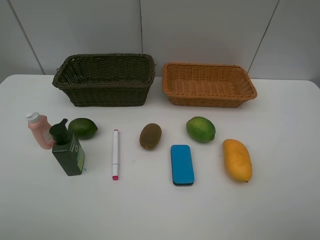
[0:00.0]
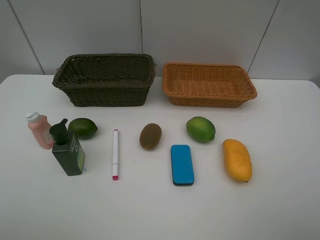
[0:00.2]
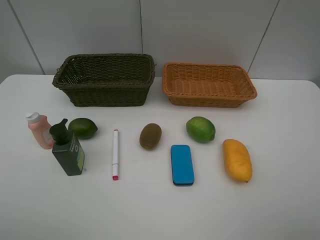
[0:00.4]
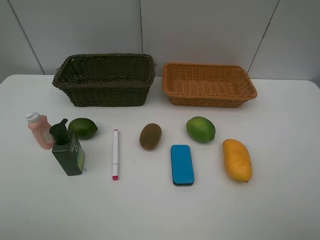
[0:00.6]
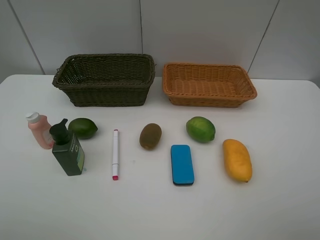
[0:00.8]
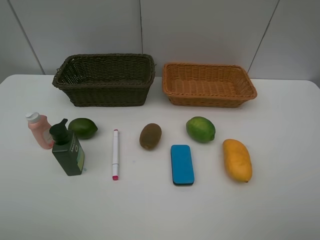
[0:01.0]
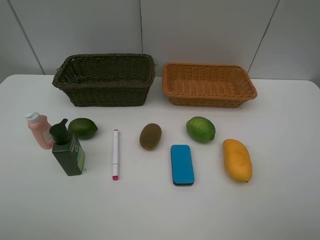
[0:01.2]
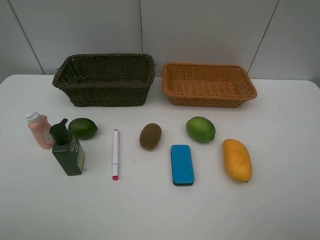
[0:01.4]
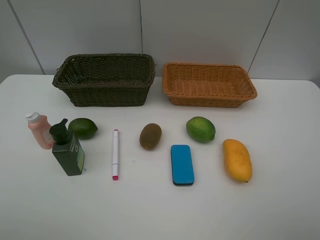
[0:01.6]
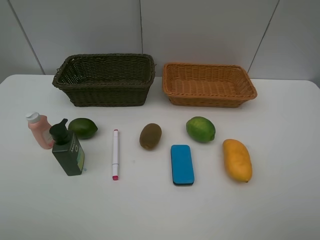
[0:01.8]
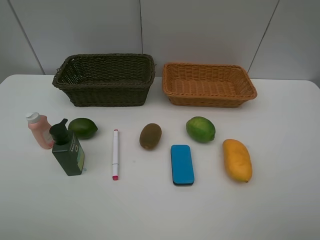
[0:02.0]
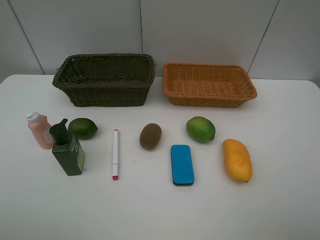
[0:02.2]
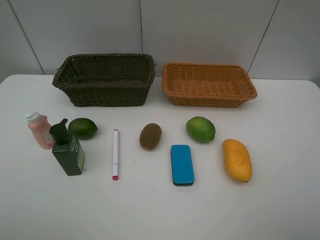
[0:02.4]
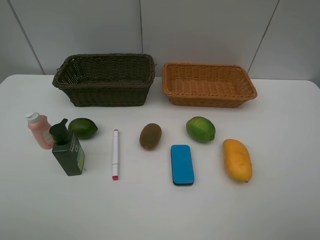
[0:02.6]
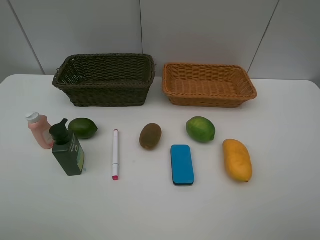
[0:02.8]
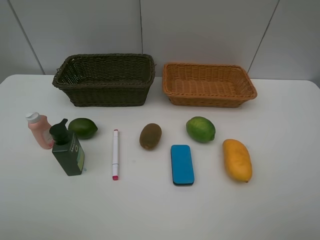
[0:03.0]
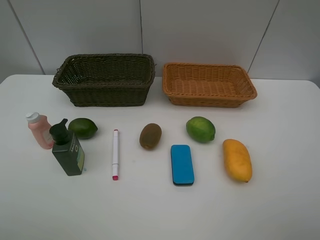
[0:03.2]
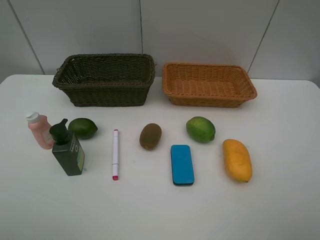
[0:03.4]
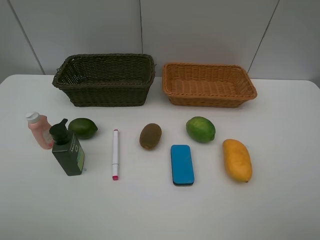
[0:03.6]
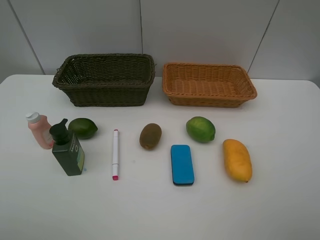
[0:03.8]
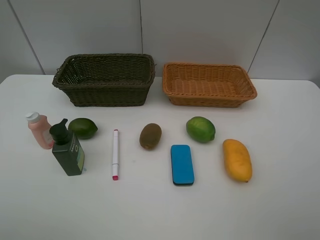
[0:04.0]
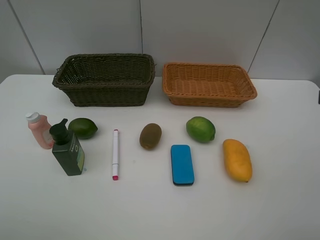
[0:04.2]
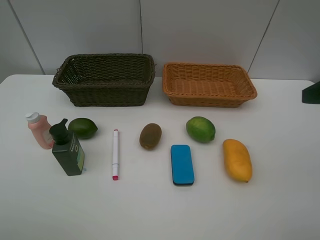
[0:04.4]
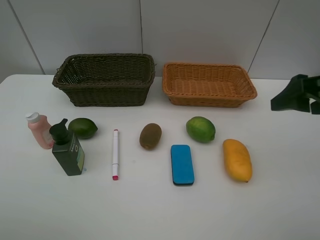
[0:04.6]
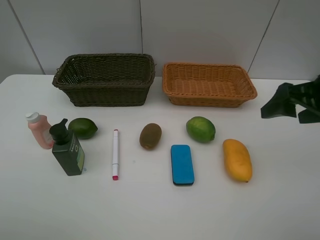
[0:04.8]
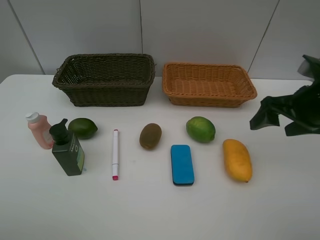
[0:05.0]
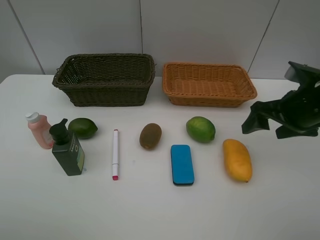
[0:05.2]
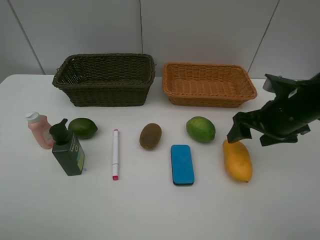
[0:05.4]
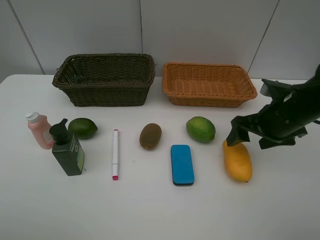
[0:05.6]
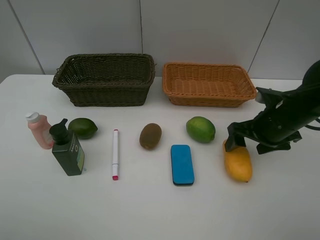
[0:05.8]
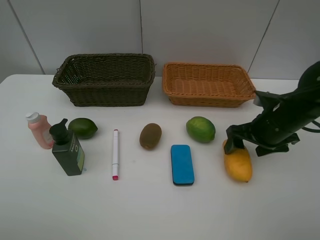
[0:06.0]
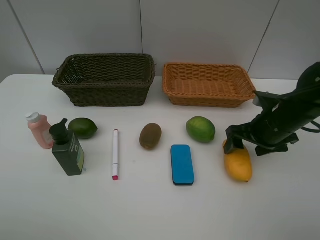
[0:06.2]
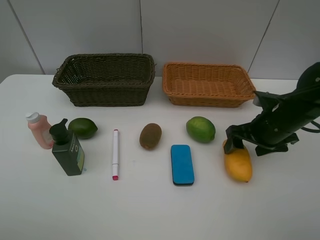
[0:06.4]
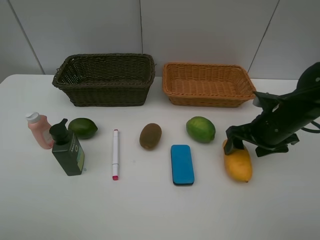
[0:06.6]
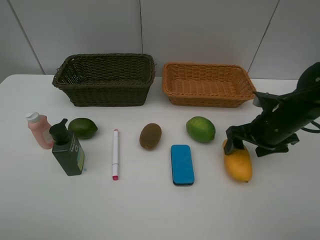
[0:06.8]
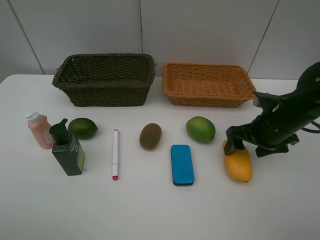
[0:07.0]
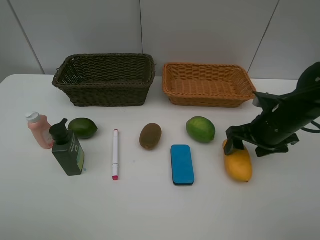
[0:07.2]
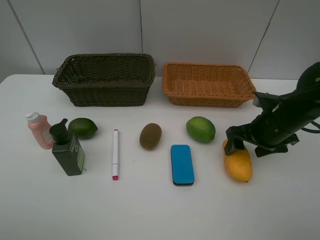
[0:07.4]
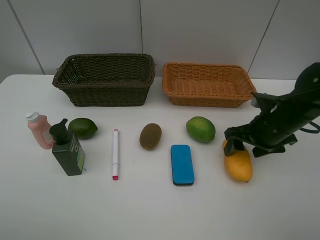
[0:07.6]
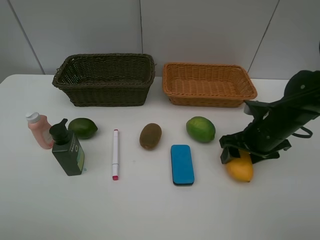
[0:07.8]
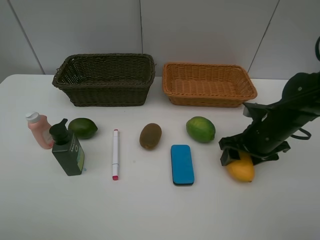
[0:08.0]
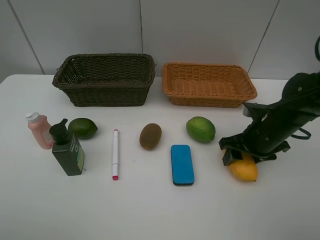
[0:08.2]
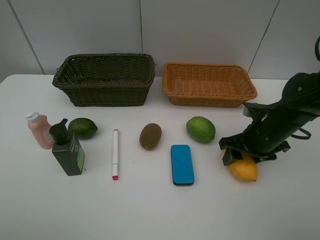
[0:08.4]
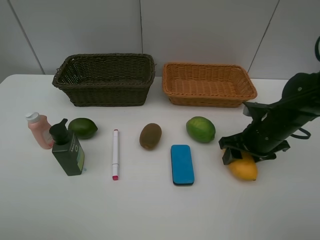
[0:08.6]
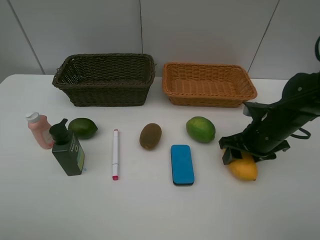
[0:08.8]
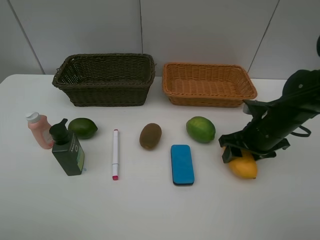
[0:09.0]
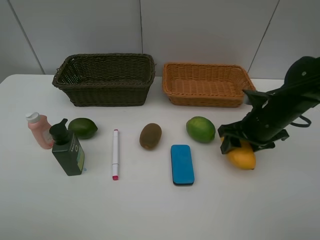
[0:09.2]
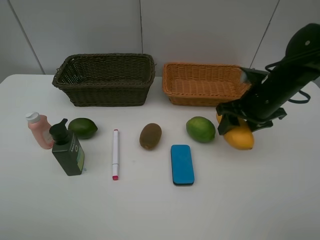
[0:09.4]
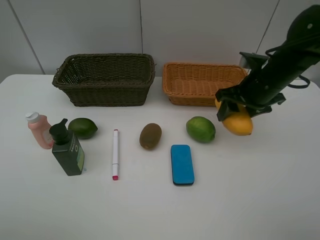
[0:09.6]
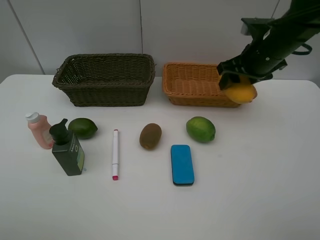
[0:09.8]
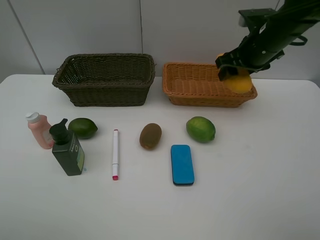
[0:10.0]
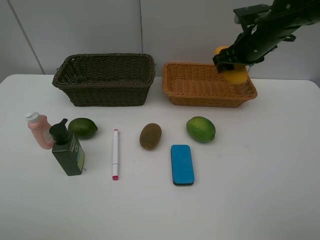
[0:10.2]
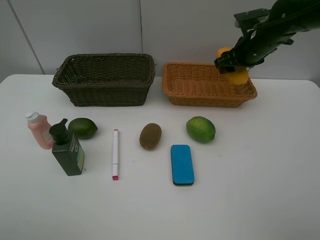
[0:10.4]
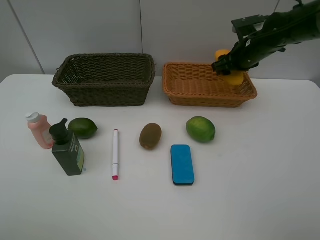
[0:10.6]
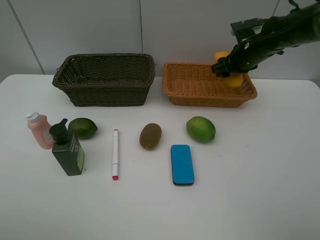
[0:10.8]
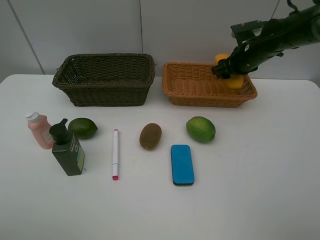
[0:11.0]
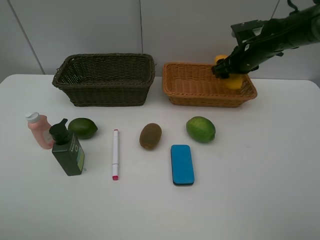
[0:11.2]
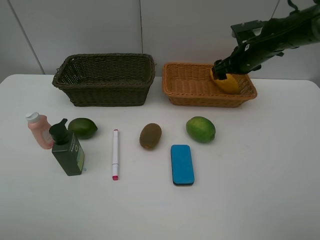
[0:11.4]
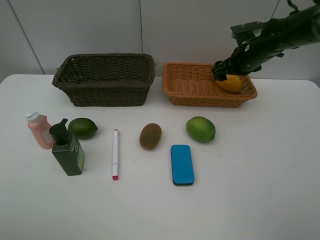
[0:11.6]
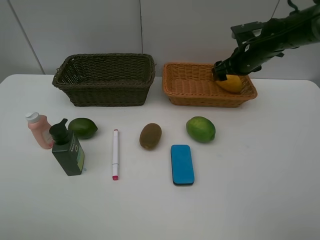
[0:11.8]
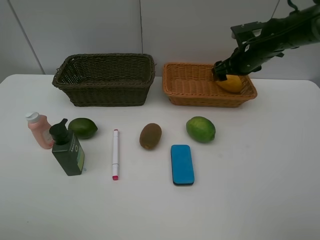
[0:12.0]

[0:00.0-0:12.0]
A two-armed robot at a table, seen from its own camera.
Task of the whole recording: Place multiple objects separately in different baskets.
Step, 0:00.0 to 0:09.2: Pick up the mango with right gripper.
0:00.0 to 0:03.0: Both grippers stay about where they are.
0:04.4 to 0:06.0: The right gripper moves downward and forward, approximately 20 cm.
0:06.0 to 0:07.6: Both grippers stay put.
0:07.6 to 0:09.0: The right gripper closes up.
0:09.0 to 0:10.4: The right gripper moves forward and upward, about 20 cm.
0:10.4 to 0:12.0: The right gripper opens its fingers.

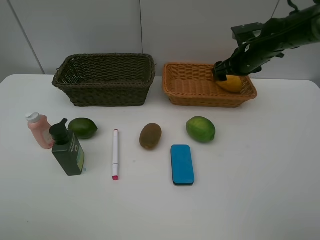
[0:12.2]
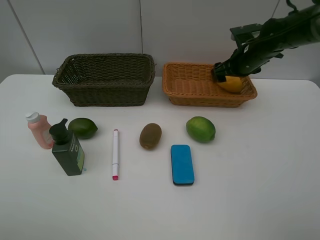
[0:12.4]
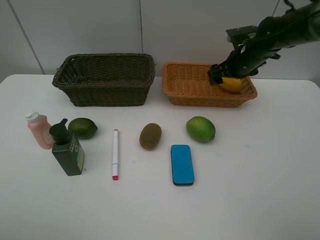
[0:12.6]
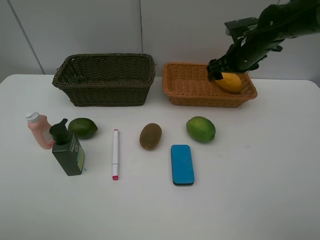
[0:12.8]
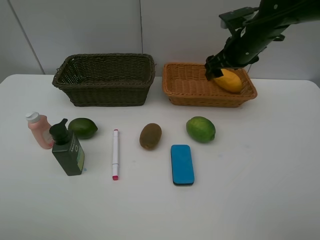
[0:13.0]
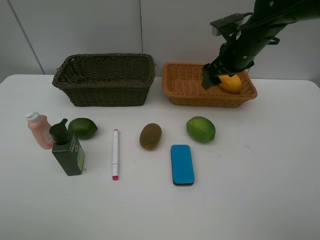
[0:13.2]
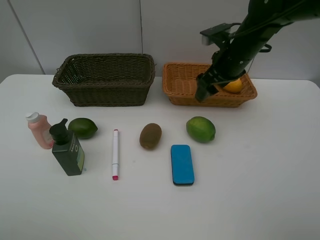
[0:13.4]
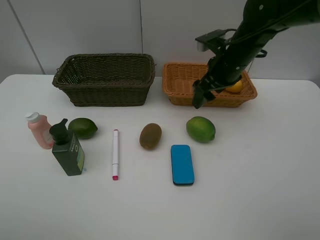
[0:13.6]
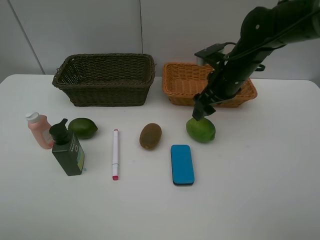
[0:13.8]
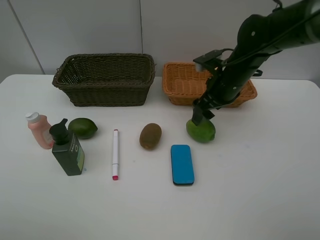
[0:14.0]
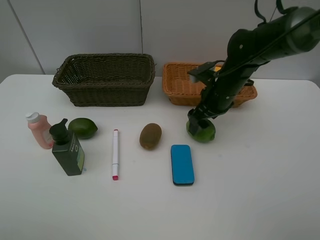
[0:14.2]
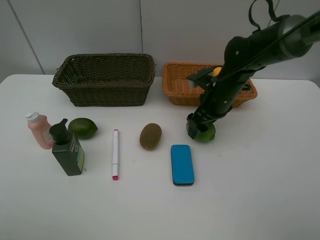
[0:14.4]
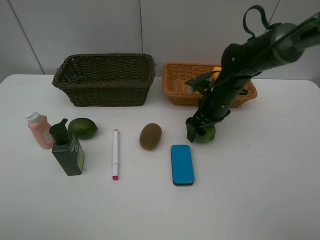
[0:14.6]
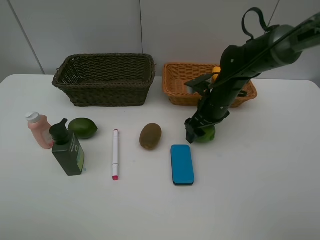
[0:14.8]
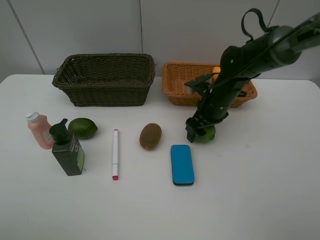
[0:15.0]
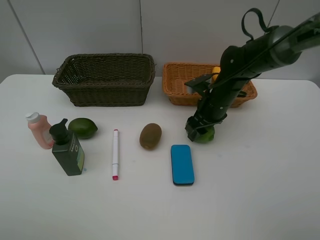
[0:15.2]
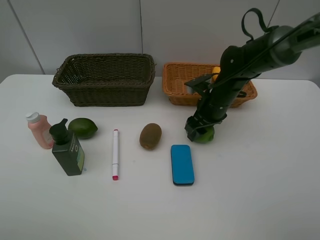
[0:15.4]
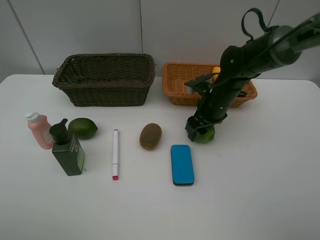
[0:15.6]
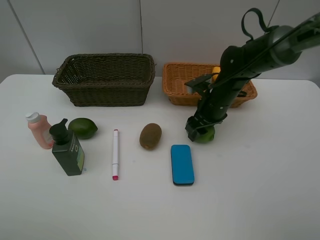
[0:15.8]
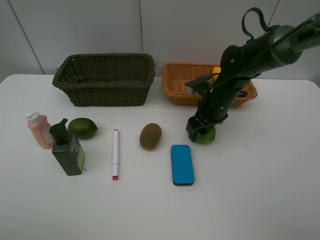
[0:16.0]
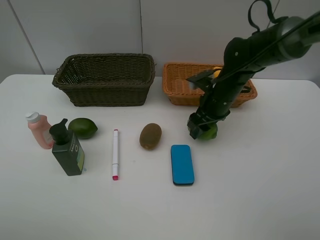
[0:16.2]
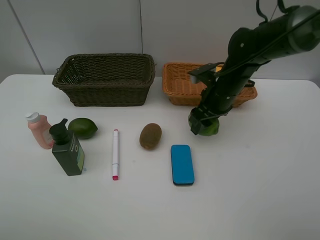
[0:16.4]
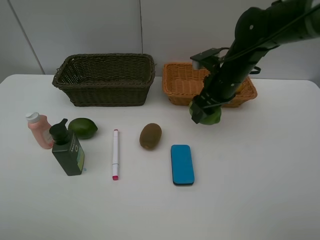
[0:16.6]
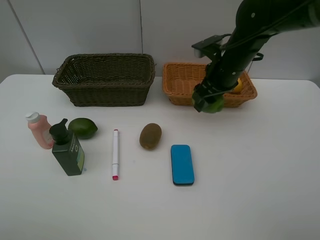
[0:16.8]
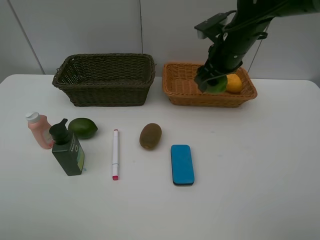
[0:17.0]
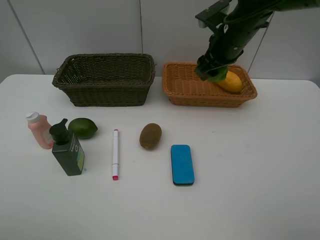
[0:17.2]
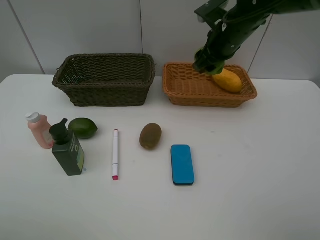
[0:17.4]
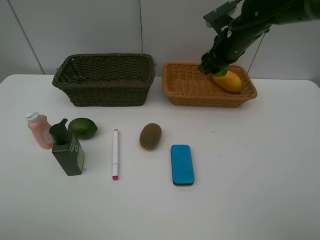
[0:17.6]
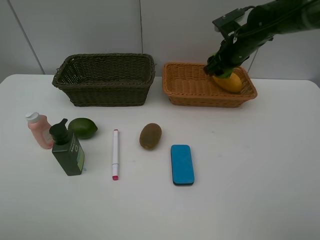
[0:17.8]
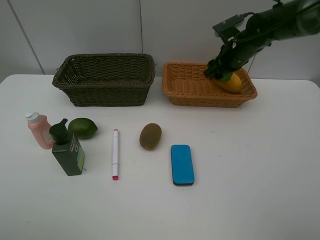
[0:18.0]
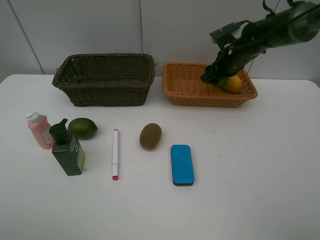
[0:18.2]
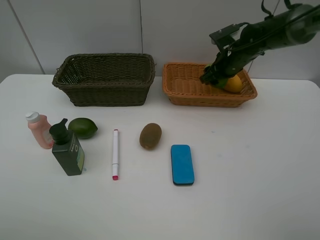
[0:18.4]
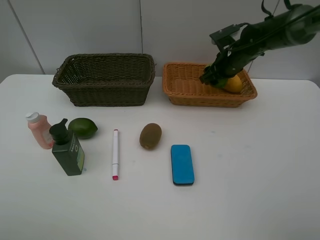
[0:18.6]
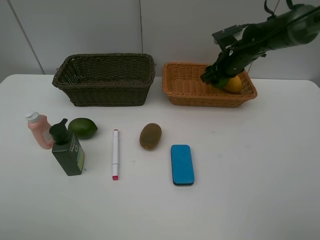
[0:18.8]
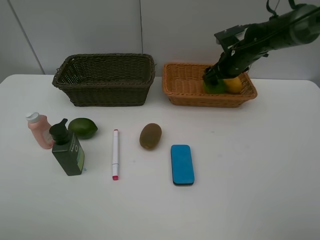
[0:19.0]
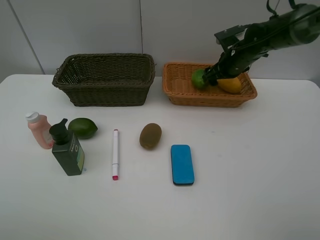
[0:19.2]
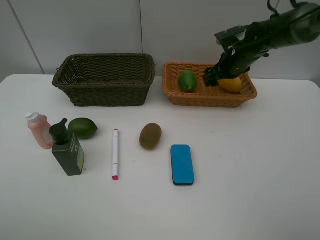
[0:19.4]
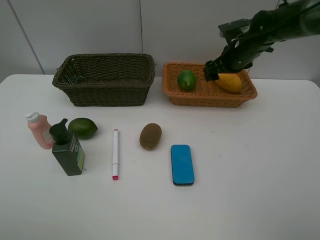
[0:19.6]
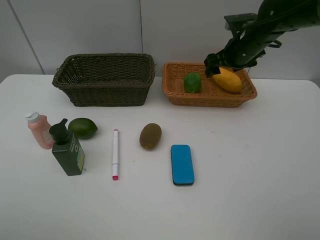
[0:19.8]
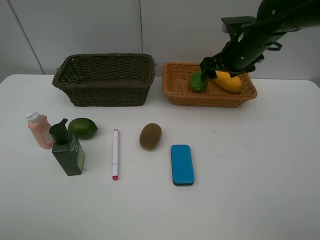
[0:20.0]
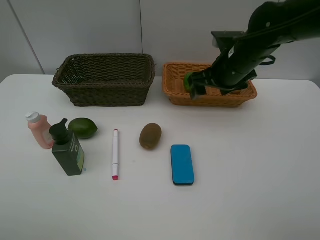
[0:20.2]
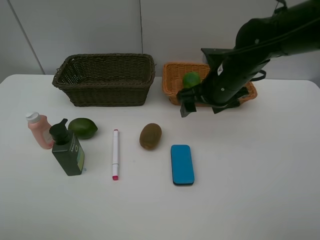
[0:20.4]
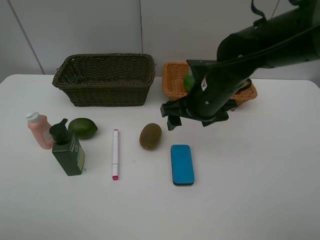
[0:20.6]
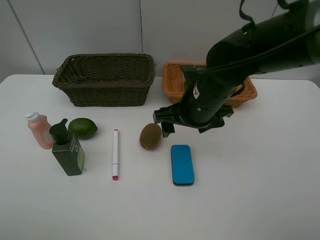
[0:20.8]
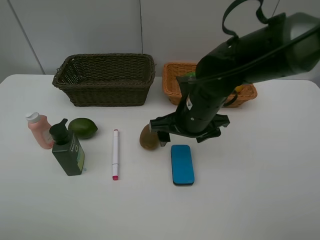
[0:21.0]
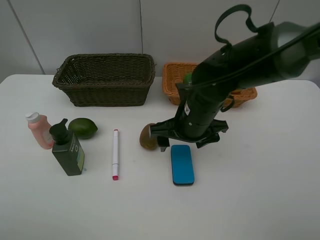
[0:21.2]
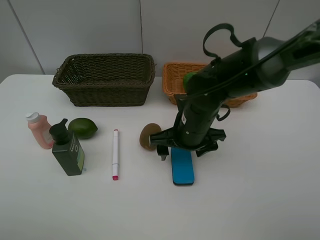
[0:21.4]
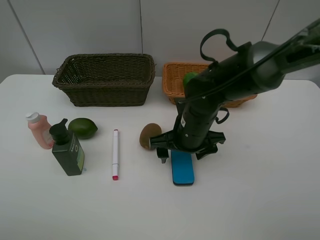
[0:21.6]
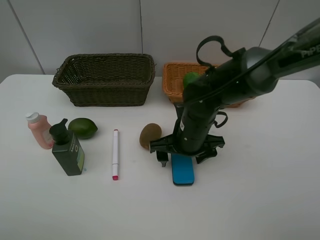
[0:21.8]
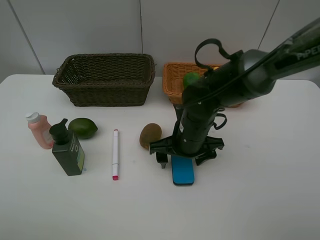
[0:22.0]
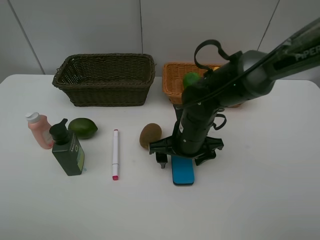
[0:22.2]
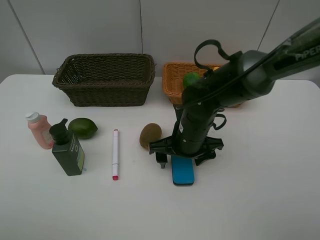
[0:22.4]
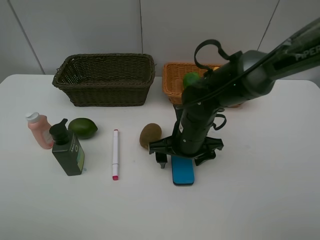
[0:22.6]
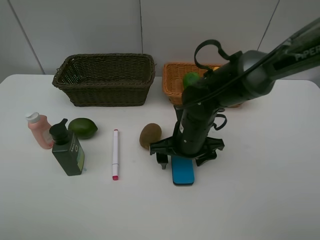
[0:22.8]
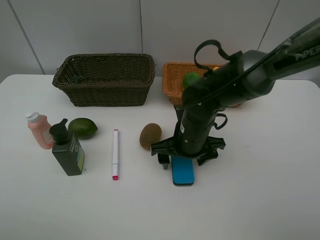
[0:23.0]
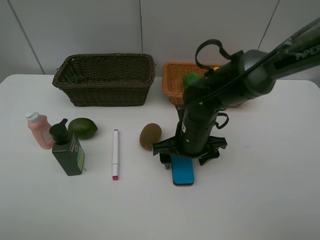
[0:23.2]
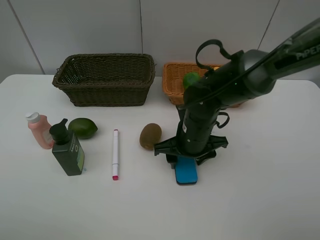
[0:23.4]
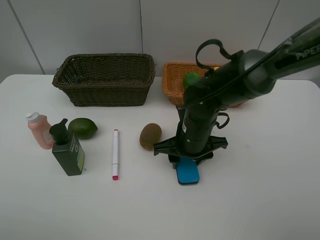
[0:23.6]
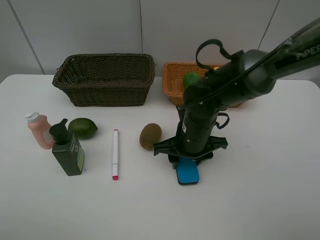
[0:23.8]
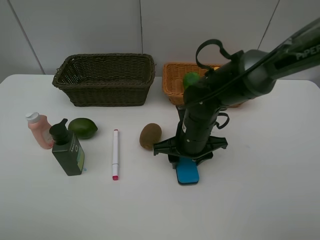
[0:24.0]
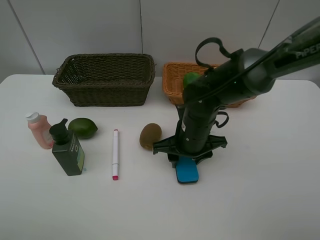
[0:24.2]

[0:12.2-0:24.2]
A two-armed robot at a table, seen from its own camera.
Task of the whole recording: Place multiple objects separately in different baskets.
Step, 0:12.4 to 0:16.4: Pick up the lime with right gripper.
Step, 0:16.6 to 0:19.4: Place the lime in the light basket with right gripper.
0:12.2 to 0:13.8: The right gripper moves backward and to the left, roughly 10 cm.
0:13.8 to 0:15.2: The right gripper goes about 5 cm downward, and closes its fingers.
0:15.2 to 0:16.6: The right gripper is displaced upward by roughly 5 cm.
0:16.6 to 0:18.2: The right gripper heads forward and to the right, covering some 10 cm.
0:18.2 to 0:19.8: The right gripper changes place by roughly 5 cm, and opens its fingers.
0:19.8 to 0:21.2: The right gripper travels backward, to the left and downward by approximately 20 cm.
0:21.2 to 0:22.6: The grippers move only a little.
0:22.6 to 0:24.2: The right gripper closes up.
